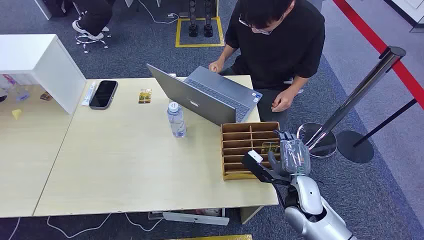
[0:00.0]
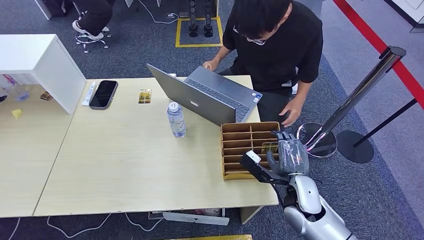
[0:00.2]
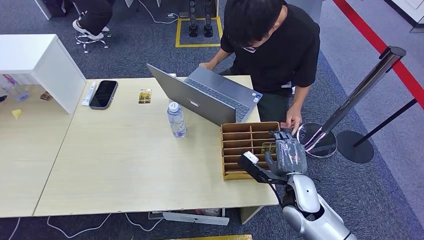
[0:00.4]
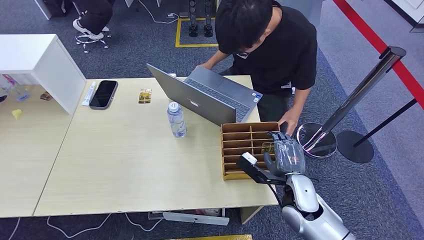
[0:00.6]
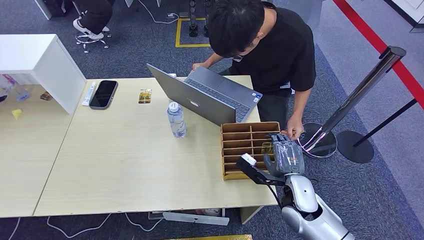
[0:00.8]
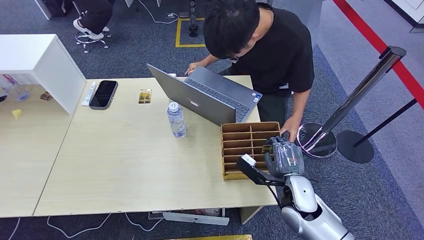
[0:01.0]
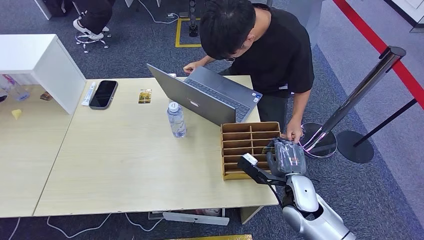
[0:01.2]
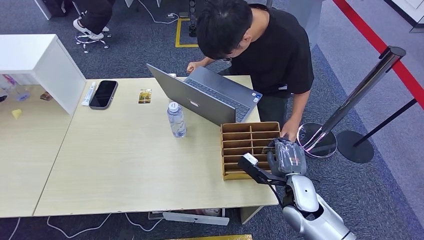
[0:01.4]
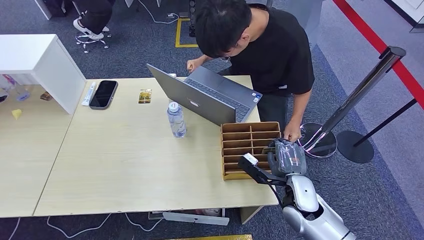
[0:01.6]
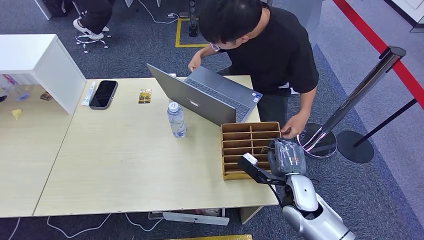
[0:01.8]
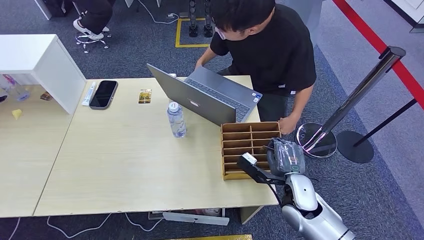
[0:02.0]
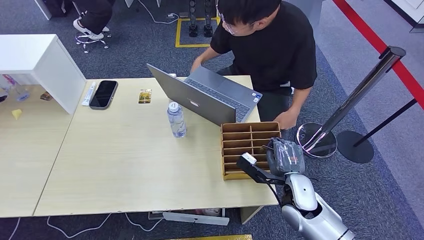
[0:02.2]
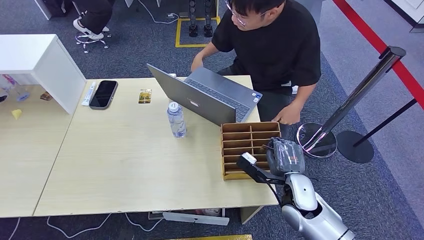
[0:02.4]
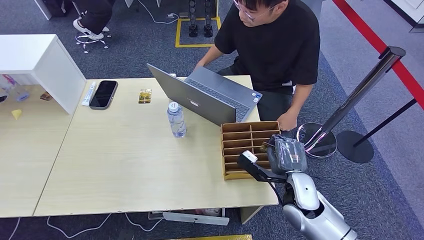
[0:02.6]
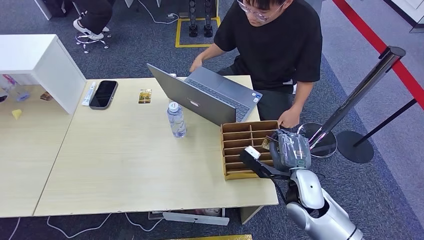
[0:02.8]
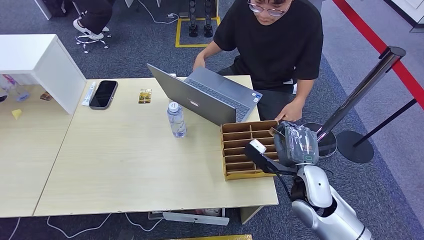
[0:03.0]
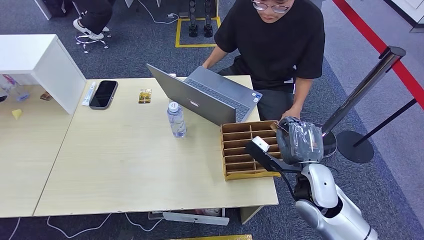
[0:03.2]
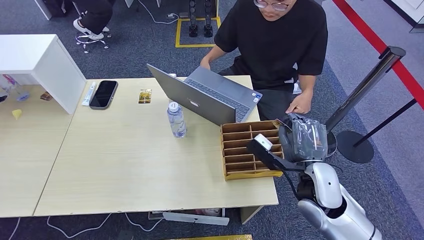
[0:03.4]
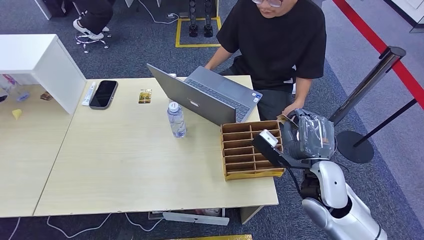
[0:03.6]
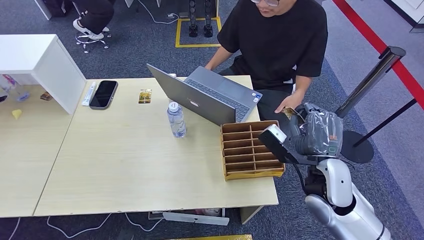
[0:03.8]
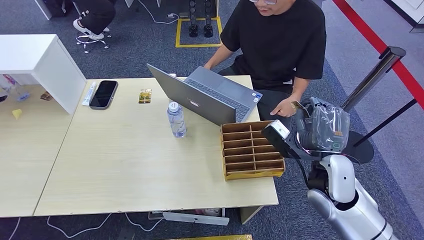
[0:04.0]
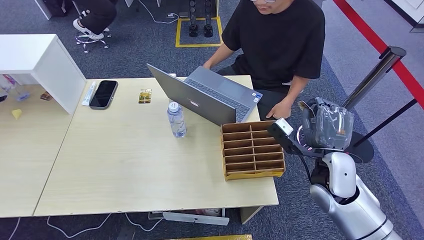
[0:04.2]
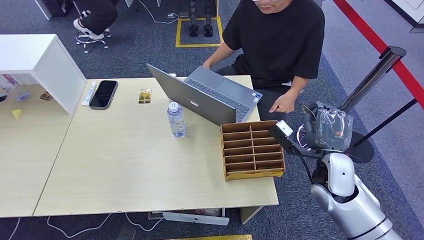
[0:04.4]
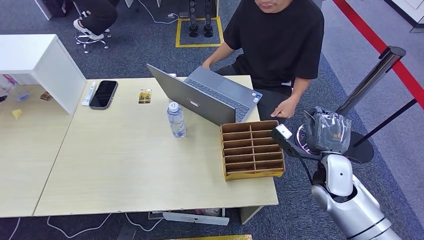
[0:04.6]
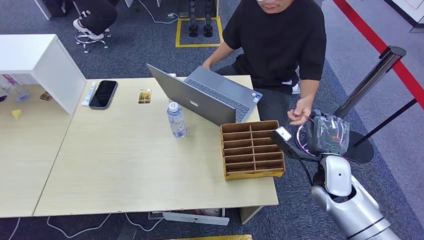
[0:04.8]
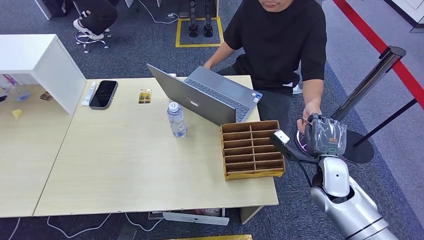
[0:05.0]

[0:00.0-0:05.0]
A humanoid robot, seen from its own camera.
Step, 0:00.0 to 0:03.4: Pick up the room card from the card holder.
Step, 0:03.6 to 0:05.0: Hand the room card to the target.
0:01.6 to 0:03.4: The right hand travels upward by about 10 cm.
0:03.4 to 0:05.0: The right hand heads to the right and downward, covering some 10 cm.
